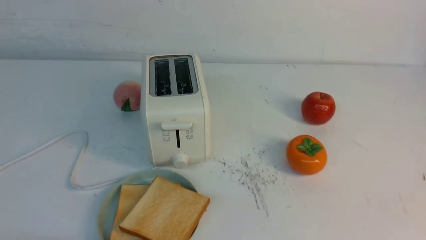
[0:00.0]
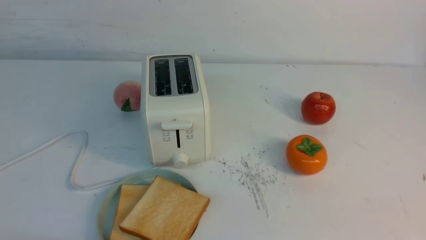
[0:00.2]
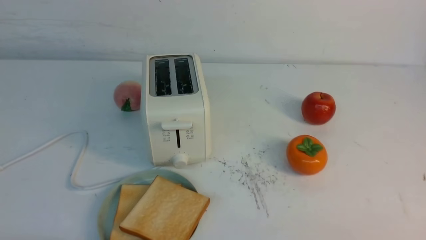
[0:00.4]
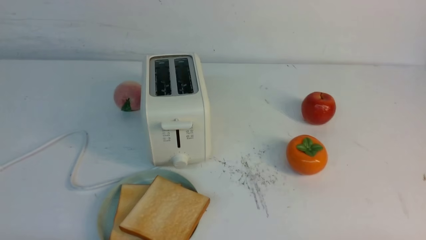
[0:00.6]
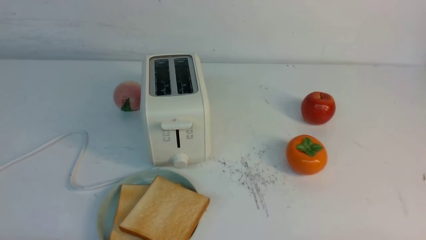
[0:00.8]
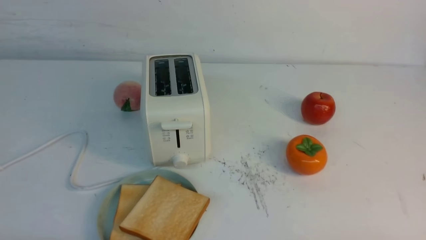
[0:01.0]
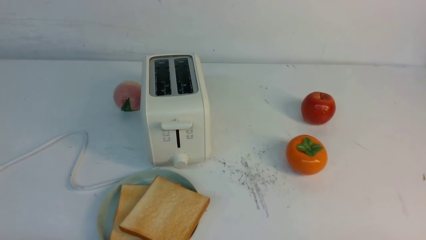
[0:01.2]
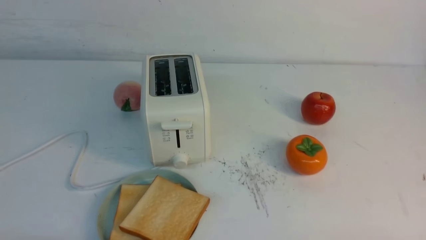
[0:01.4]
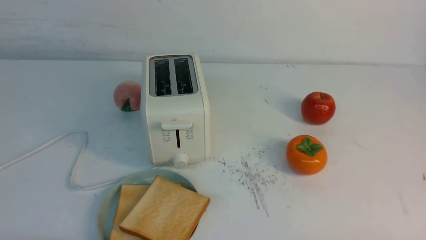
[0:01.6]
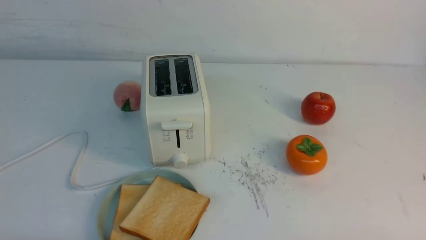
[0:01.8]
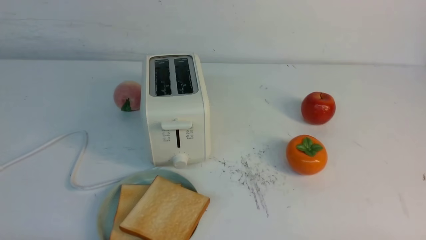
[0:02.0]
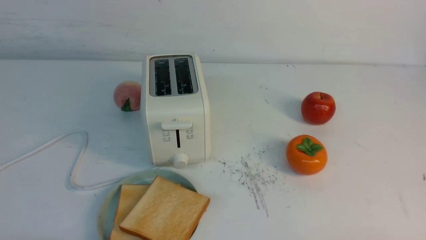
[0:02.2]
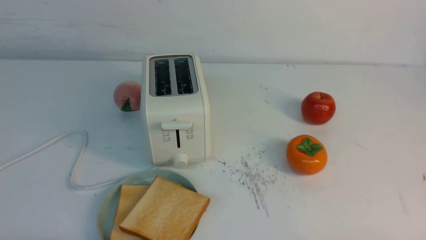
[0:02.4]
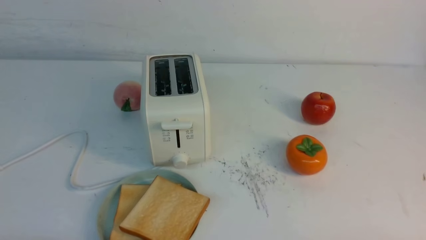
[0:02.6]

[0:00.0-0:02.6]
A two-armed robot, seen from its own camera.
Task of the whole recording: take toasted bread from bread machine on white table place on plate.
0:01.2 to 0:02.6: Both grippers stay about where they are.
